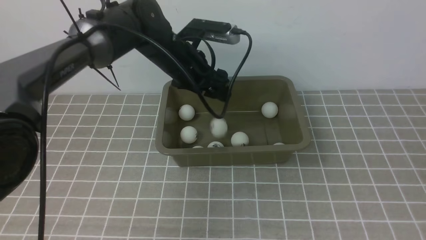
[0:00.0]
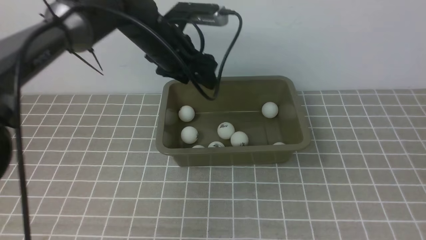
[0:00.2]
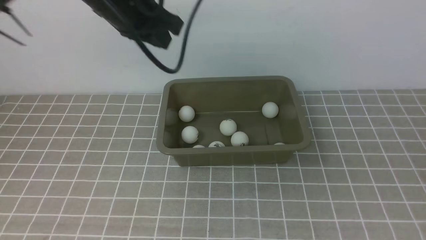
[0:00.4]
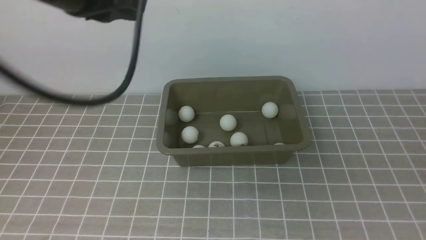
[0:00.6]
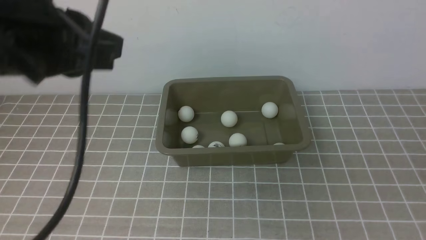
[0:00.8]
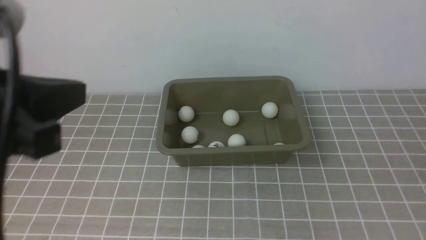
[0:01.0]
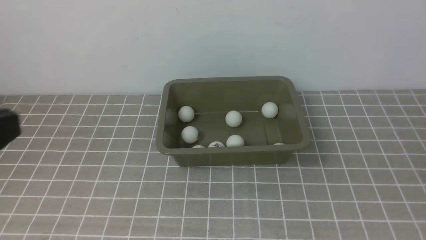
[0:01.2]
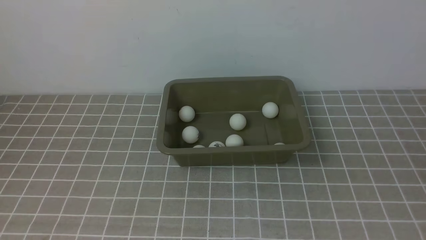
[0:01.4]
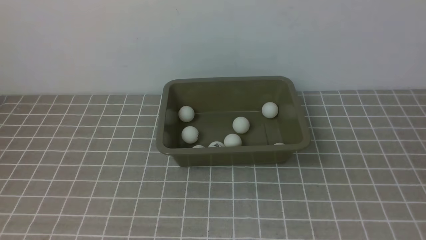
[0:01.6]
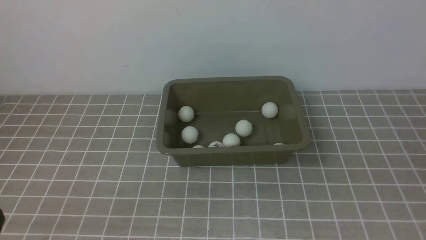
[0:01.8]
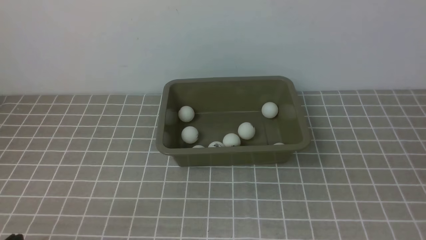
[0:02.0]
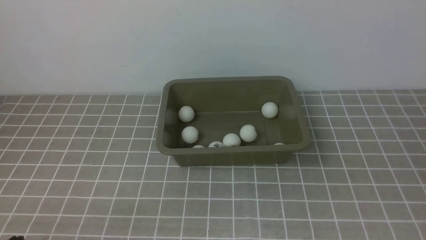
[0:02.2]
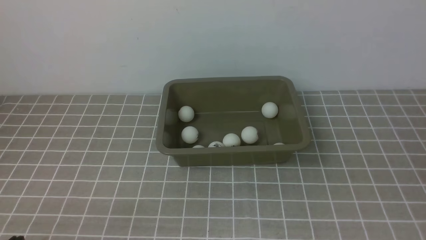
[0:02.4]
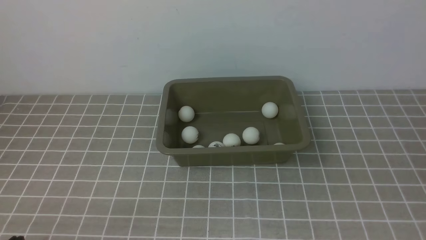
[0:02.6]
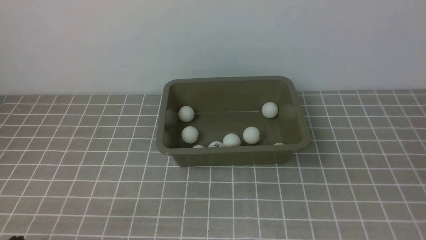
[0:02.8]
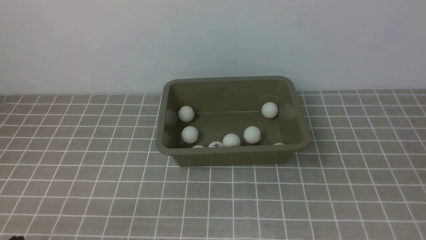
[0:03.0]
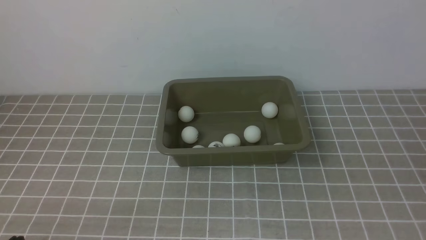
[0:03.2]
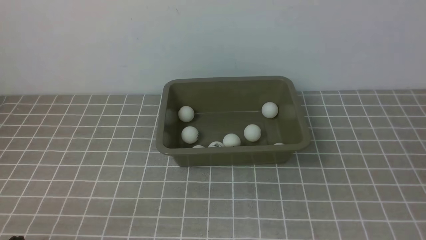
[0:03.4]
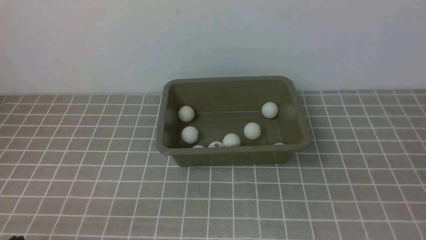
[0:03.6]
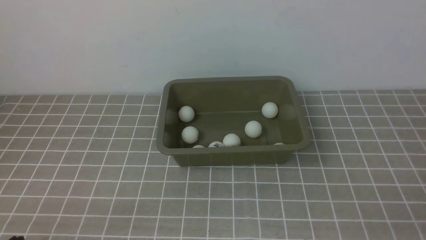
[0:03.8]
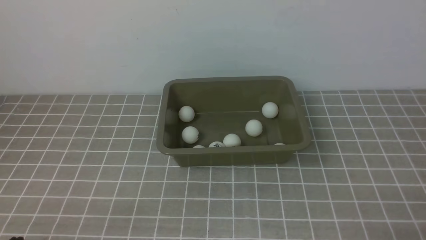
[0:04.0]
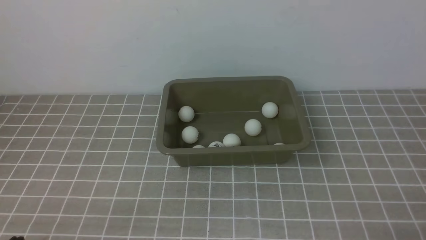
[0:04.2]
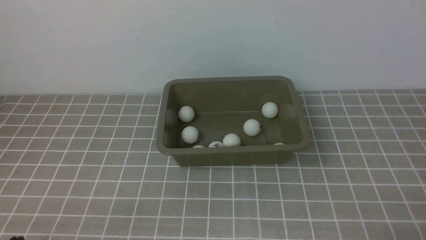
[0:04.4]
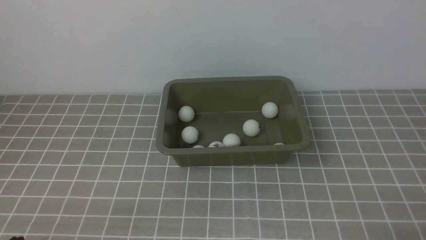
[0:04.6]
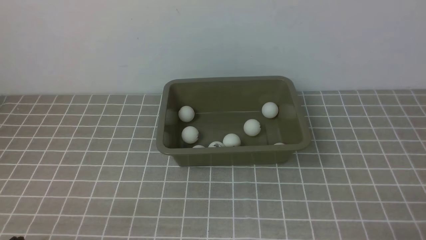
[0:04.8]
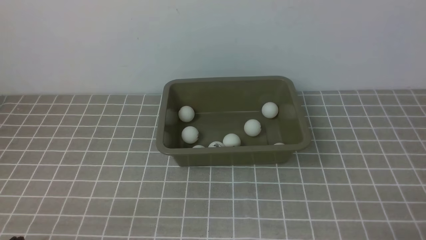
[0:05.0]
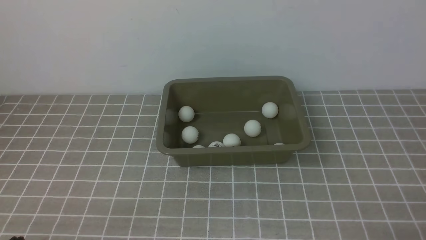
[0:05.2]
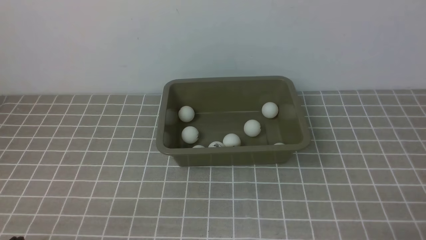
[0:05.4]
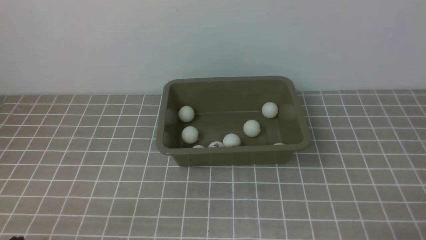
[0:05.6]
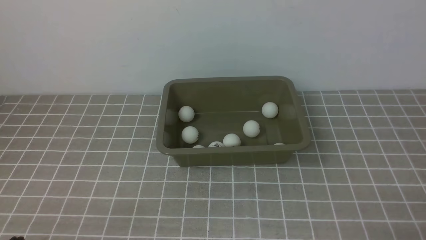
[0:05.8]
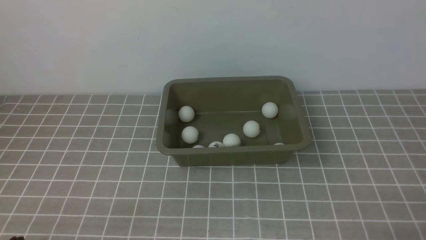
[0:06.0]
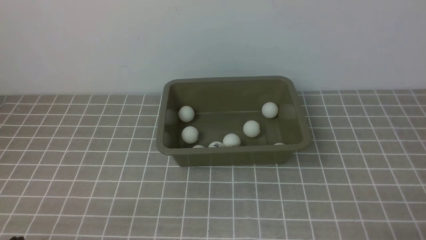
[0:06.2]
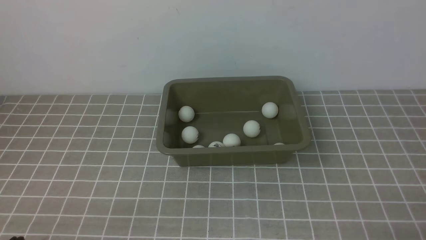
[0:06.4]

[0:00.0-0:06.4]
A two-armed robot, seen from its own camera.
0:00.0 to 0:01.6: The left gripper moves backward and to the left, approximately 40 cm, and closes.
0:04.8 to 0:06.4: Both grippers stay put.
